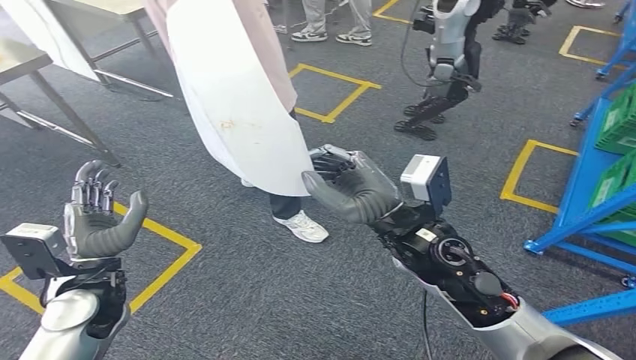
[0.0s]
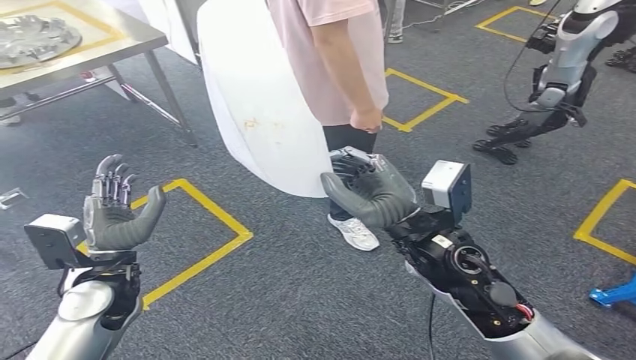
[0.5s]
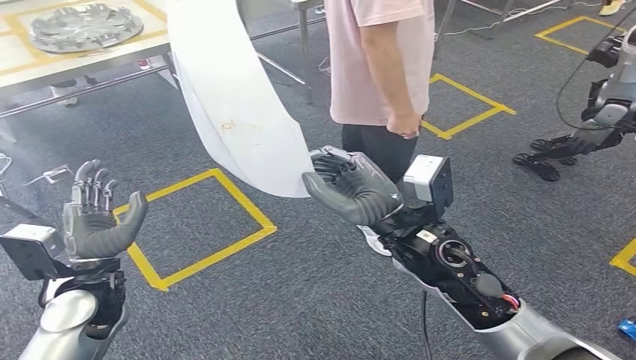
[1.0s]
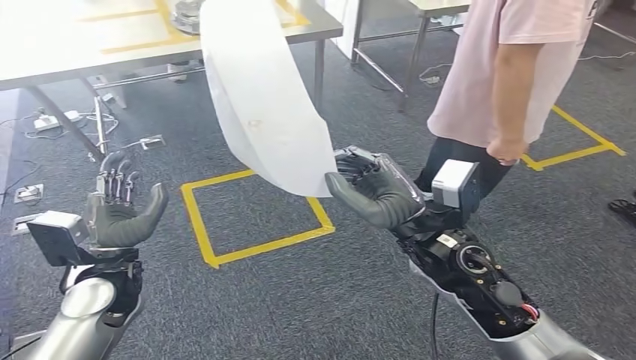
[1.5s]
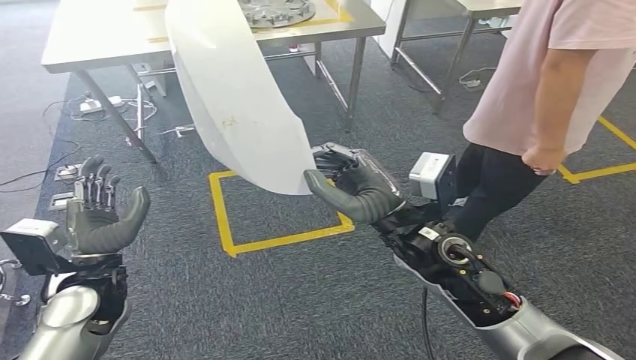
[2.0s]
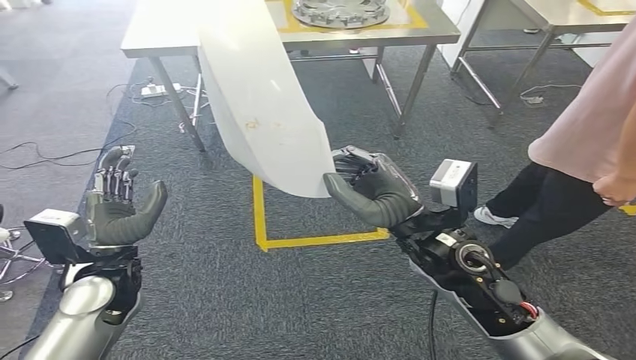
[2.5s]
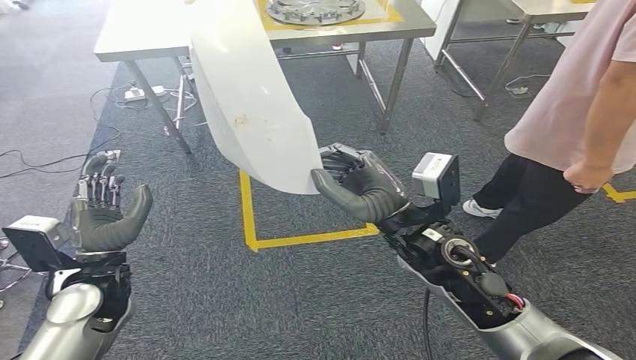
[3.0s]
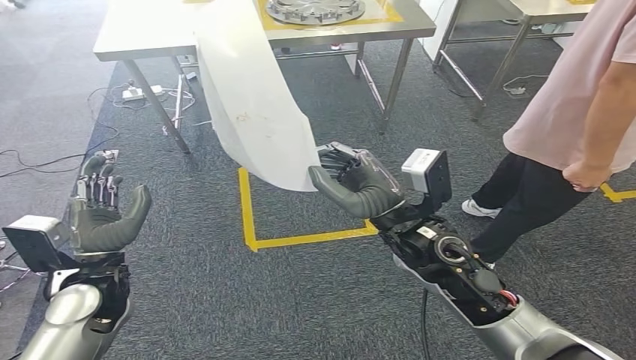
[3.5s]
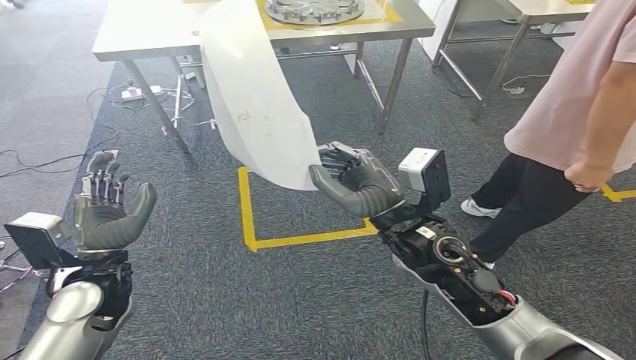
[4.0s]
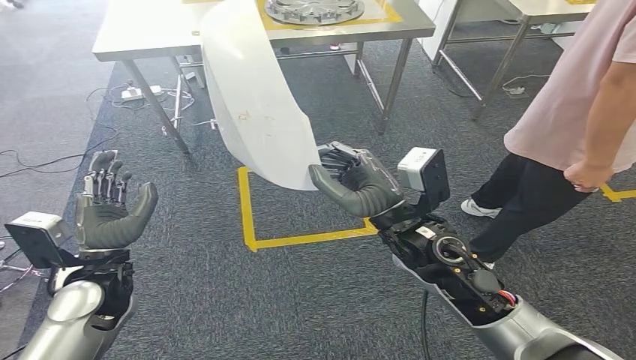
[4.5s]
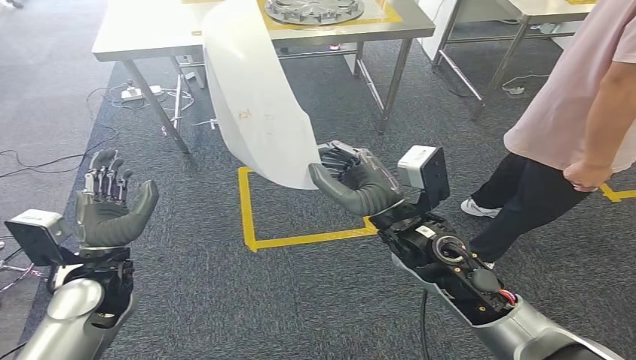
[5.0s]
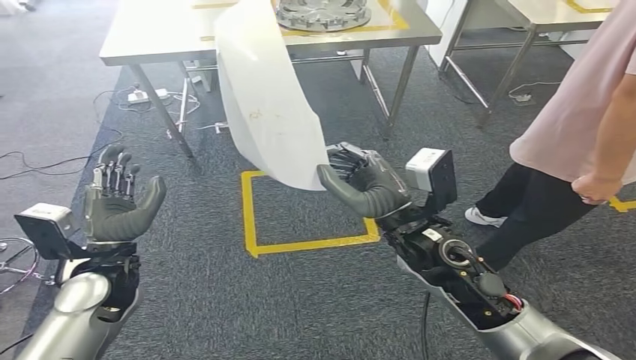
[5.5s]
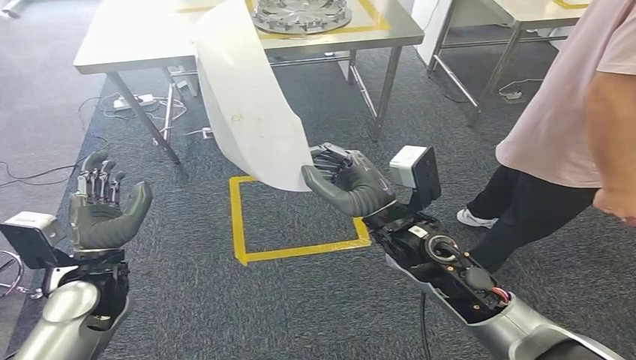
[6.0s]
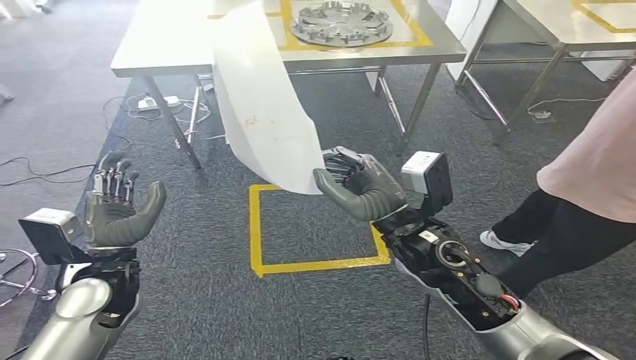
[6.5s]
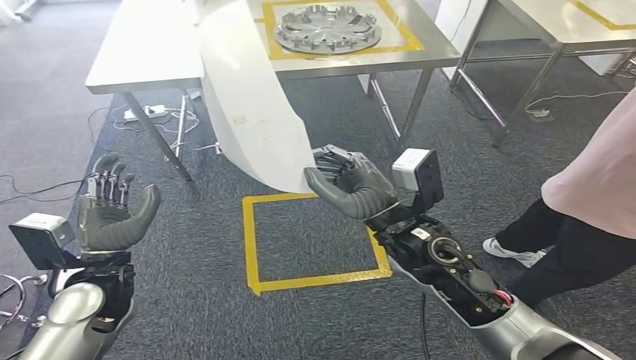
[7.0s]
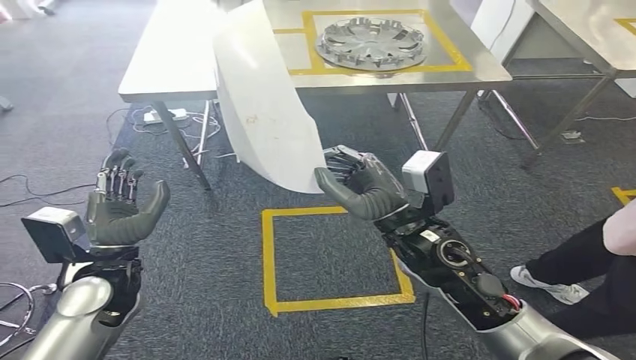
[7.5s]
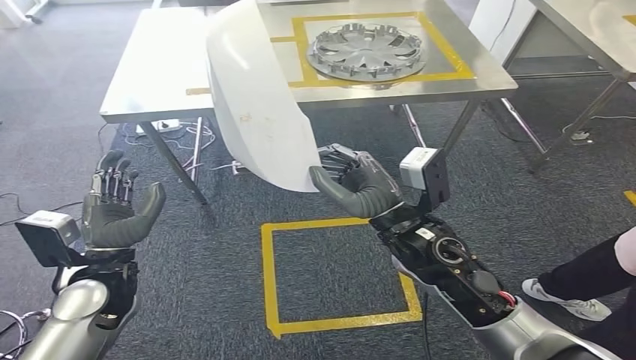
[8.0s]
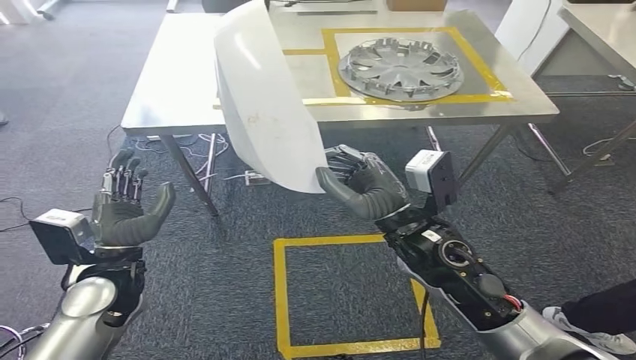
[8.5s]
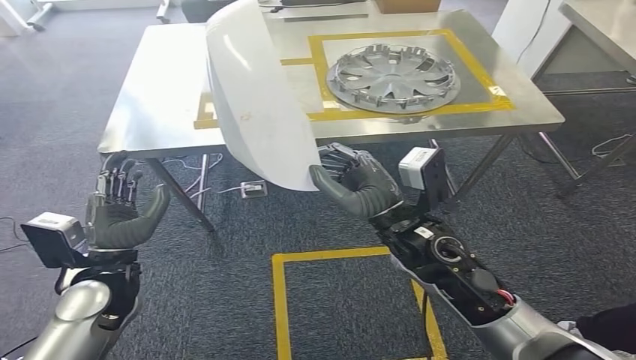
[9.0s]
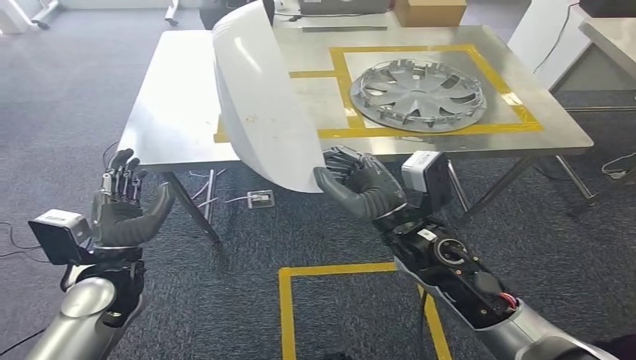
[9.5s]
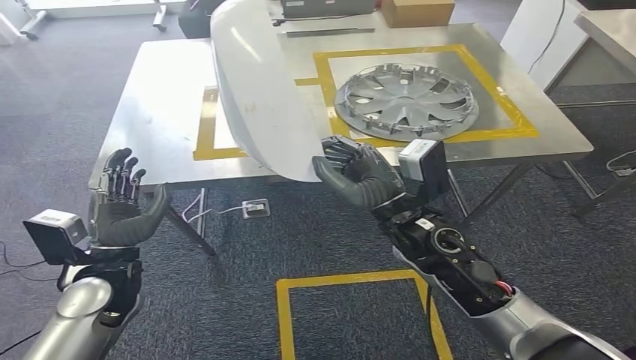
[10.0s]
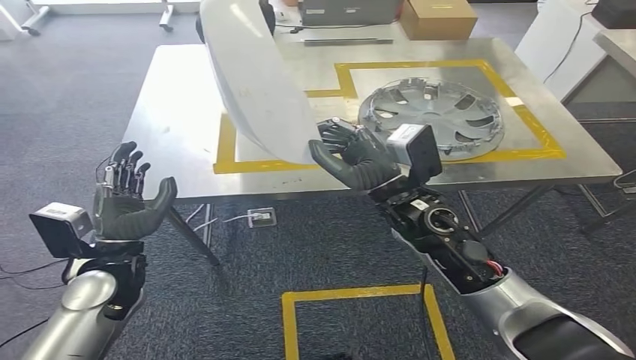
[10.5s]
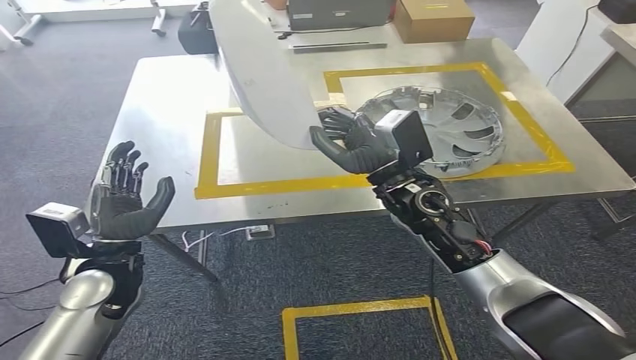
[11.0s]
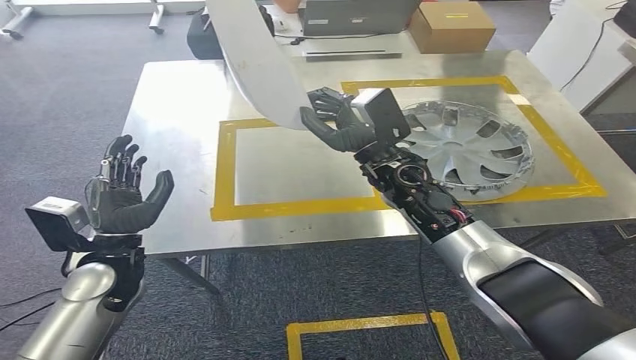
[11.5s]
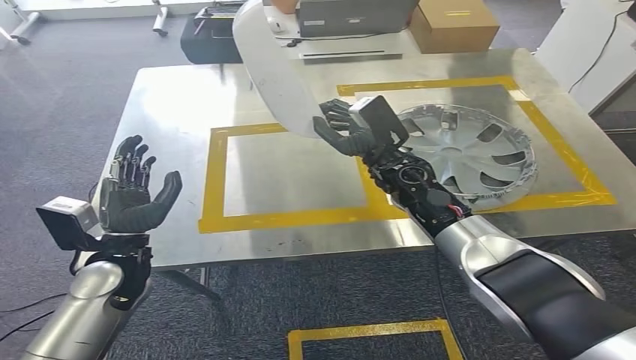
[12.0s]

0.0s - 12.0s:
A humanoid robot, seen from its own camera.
Step, 0.0s - 11.0s: Move the small parts to the workbench.

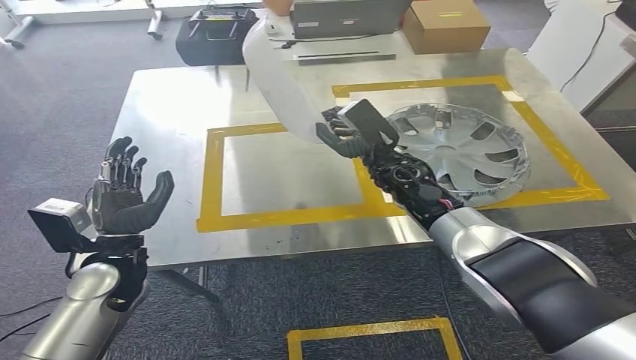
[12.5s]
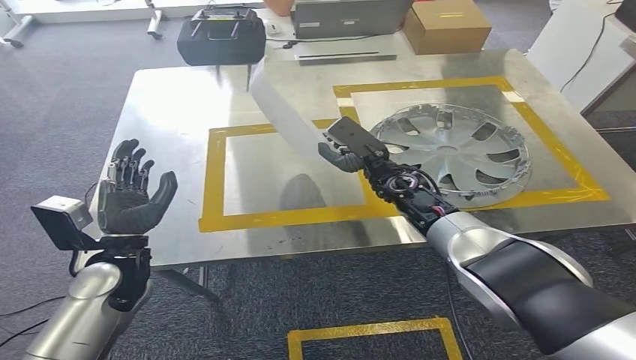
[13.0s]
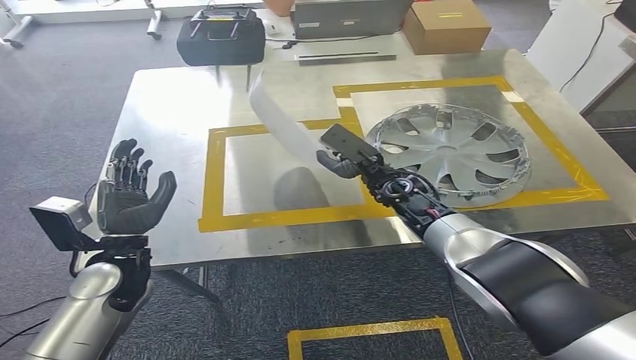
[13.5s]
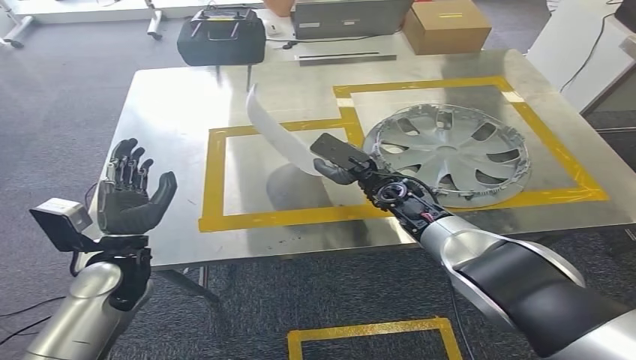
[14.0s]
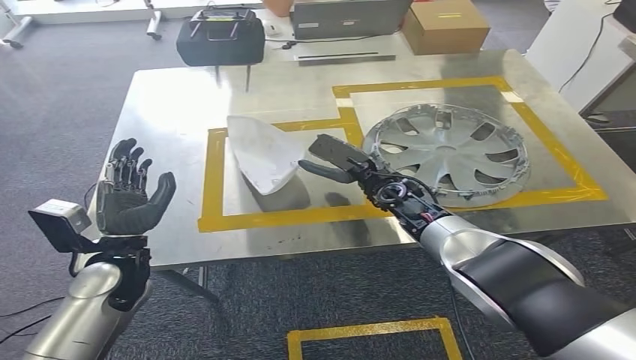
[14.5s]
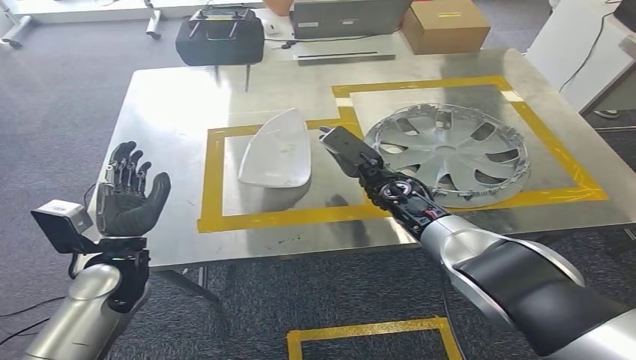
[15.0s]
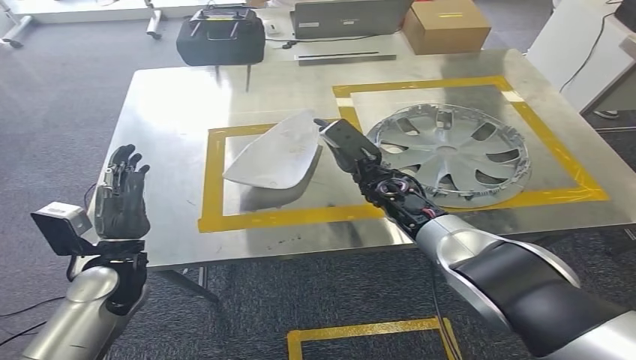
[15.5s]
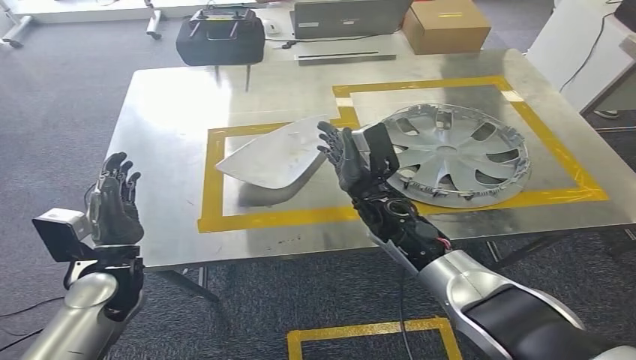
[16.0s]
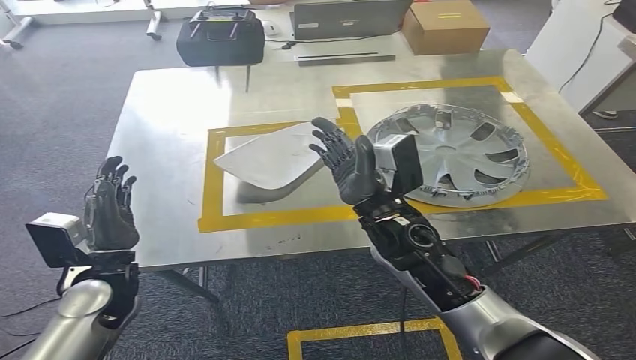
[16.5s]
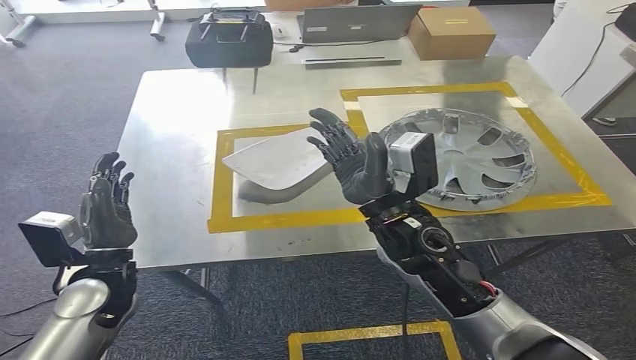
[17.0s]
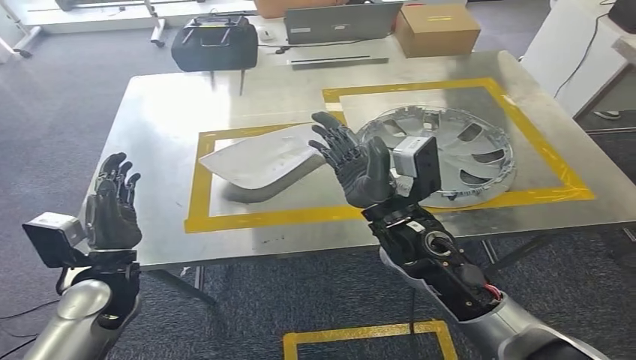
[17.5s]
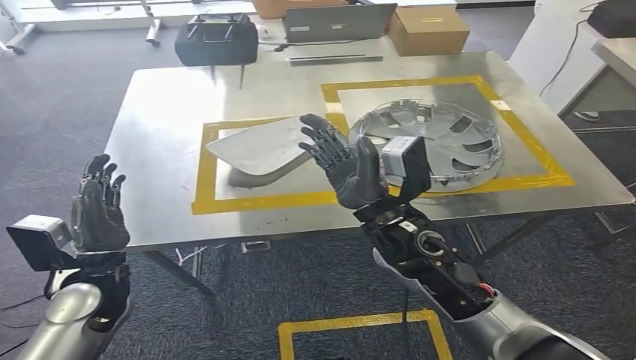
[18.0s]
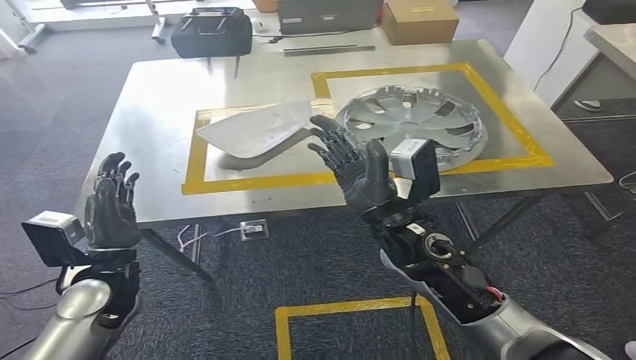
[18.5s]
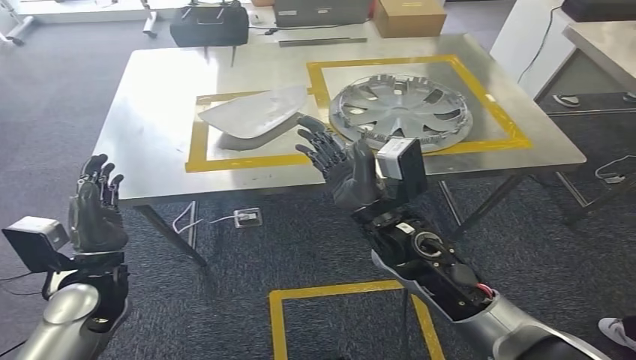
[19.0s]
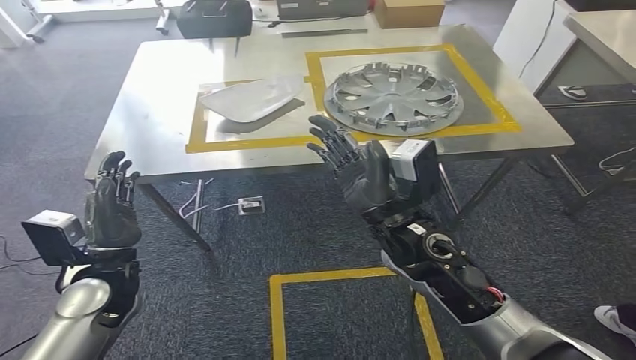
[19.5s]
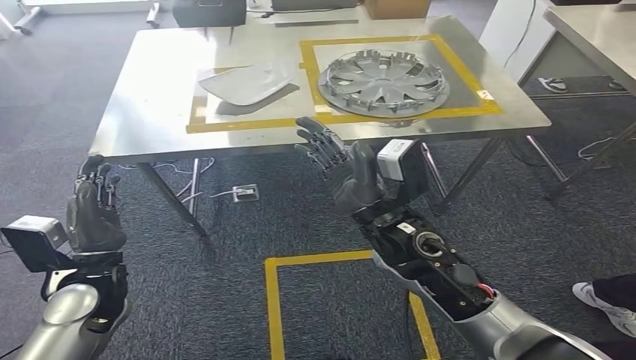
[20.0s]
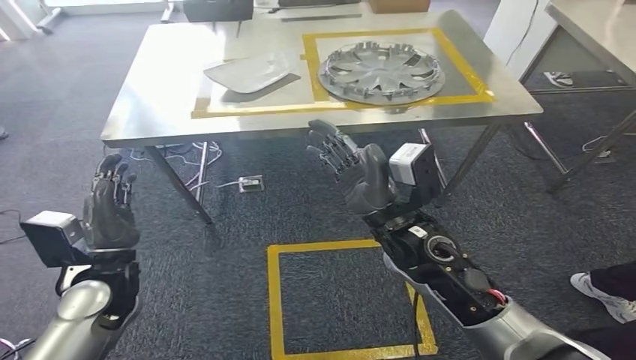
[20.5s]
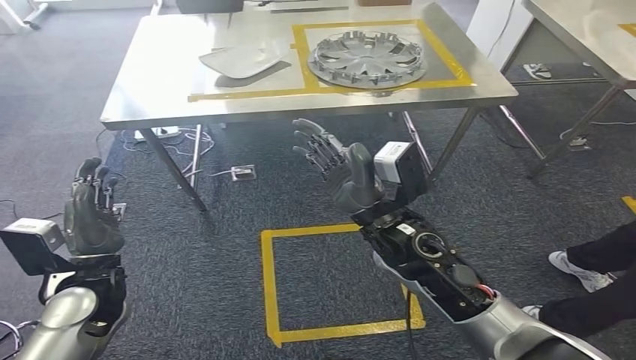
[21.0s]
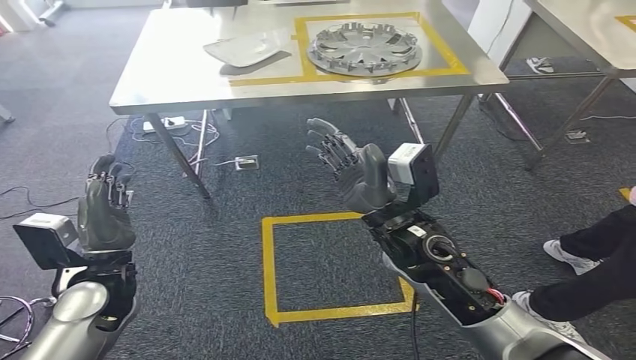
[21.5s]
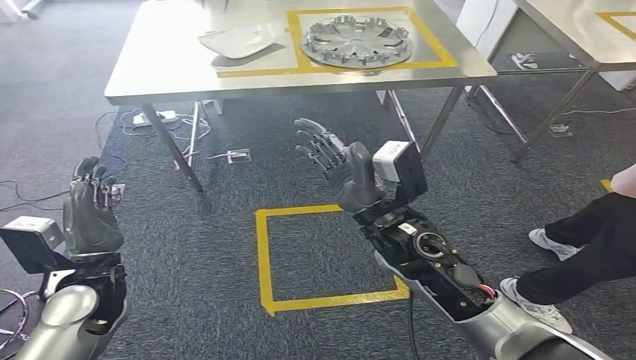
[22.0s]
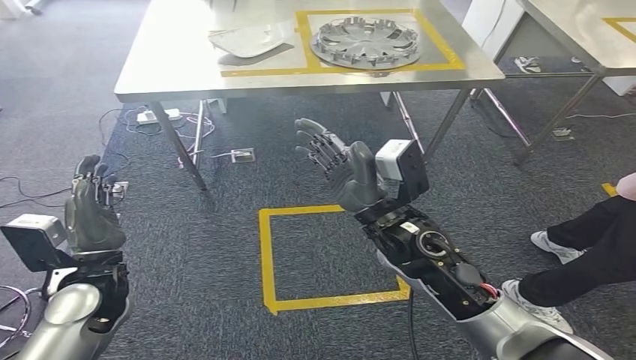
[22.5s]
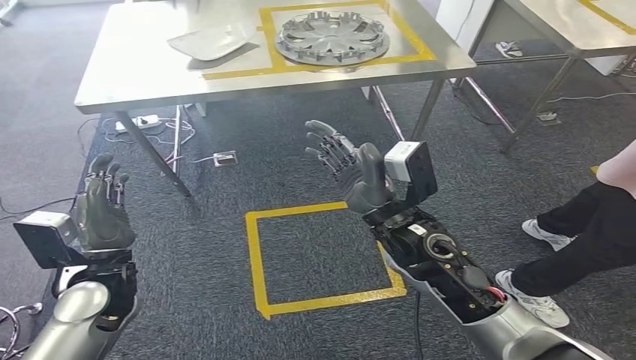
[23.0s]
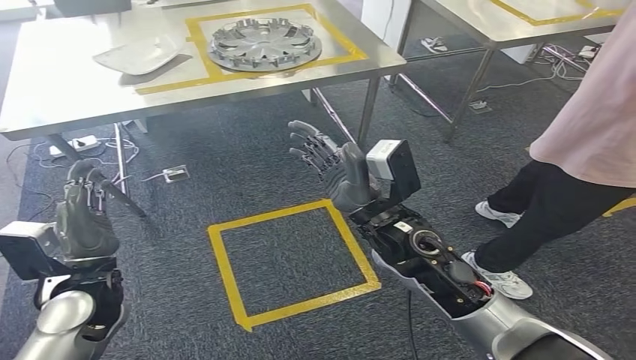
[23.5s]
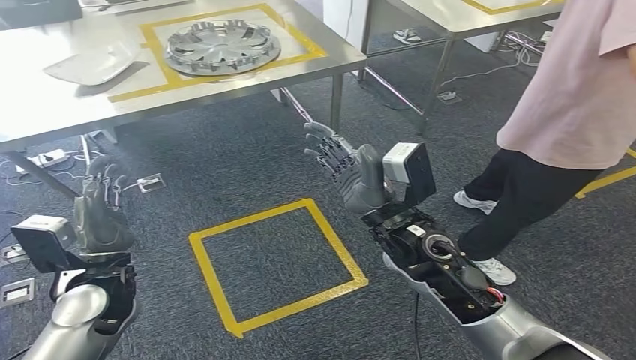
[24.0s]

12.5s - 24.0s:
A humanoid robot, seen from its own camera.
Step, 12.5s - 16.0s: Insert the small parts into the corresponding holes on the workbench.
14.5s - 16.5s: The right hand goes some 15 cm backward, to the left and upward.
